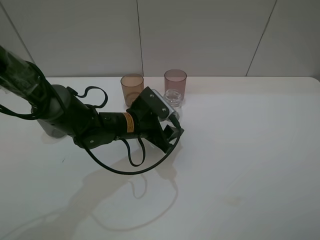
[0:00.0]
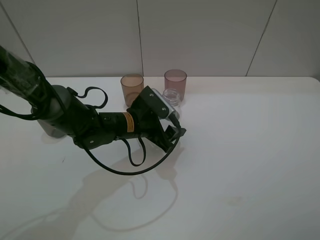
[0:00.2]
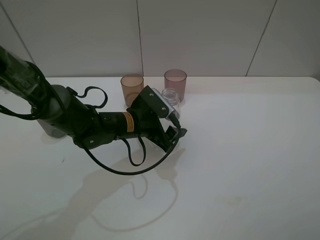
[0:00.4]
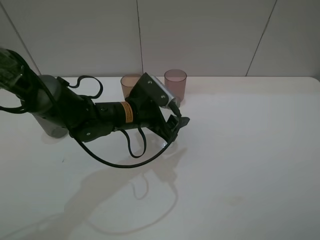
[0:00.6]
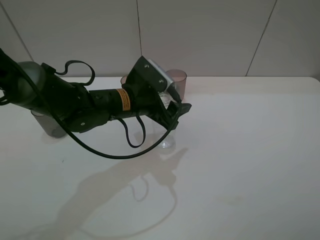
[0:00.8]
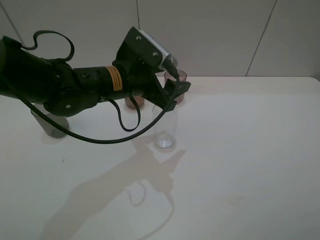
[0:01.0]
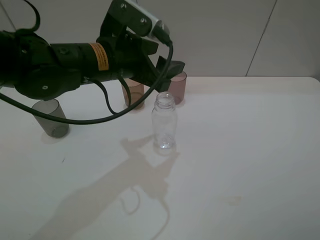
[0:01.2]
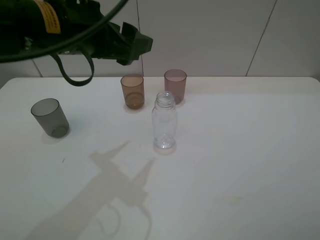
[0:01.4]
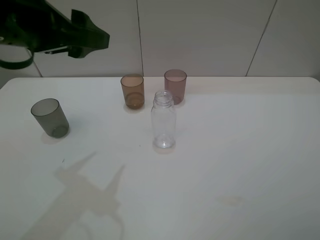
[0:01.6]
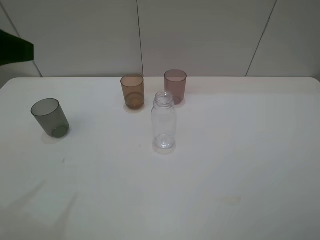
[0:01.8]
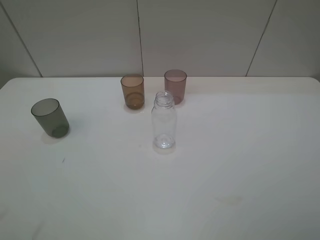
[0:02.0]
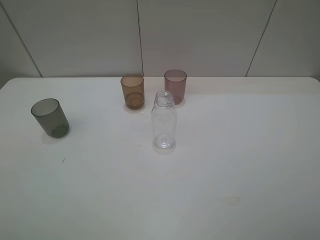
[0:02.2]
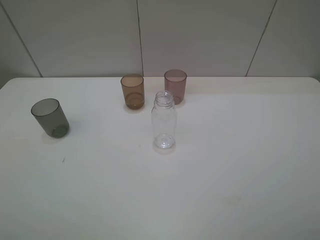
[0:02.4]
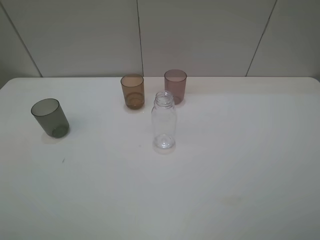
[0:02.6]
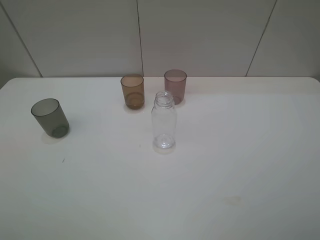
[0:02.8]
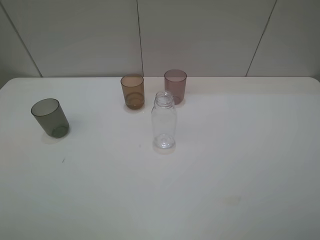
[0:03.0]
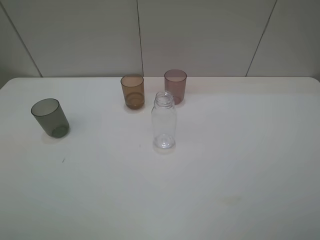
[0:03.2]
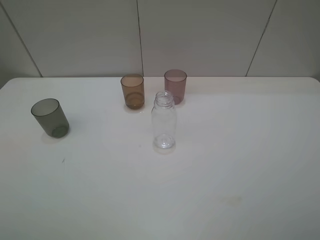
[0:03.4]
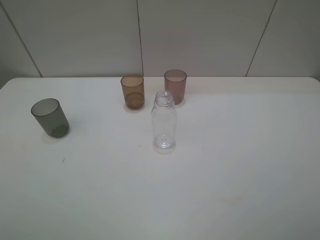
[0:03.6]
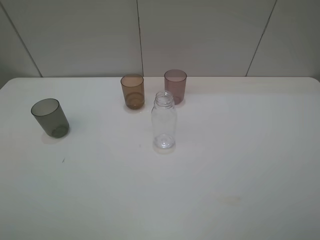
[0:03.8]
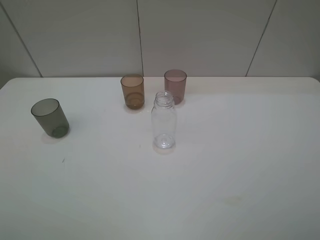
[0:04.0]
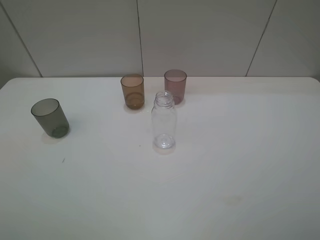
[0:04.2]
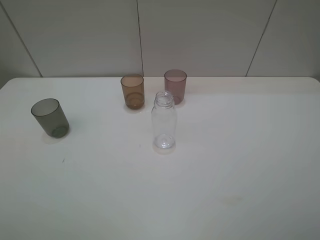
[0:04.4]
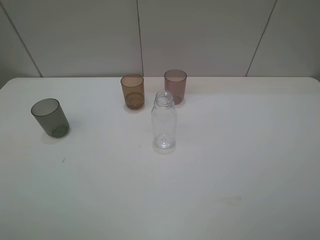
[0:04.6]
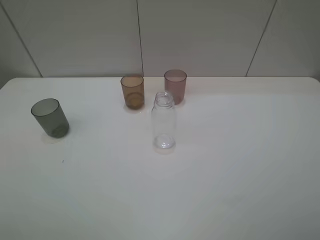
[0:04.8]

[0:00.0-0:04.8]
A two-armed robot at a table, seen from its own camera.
Task of the whole recording: pick up the bottle filled with water and pour water into the middle cup of the three cups.
0.0 to 1.6 s: The left gripper is displaced upward and to the left by about 30 cm, and opens.
1.6 to 3.2 s: The left gripper travels backward and to the left by some 25 cm.

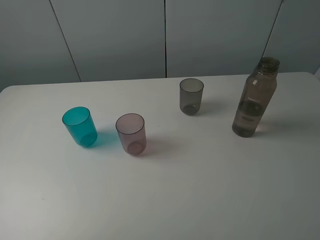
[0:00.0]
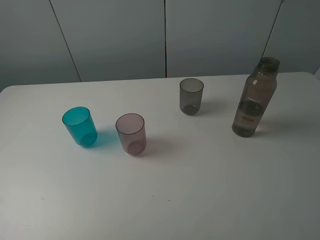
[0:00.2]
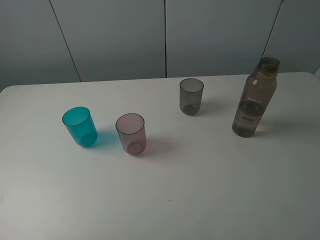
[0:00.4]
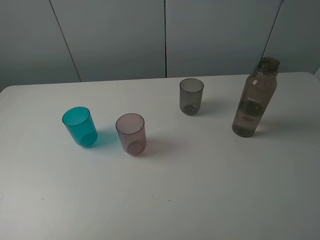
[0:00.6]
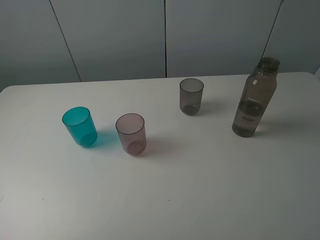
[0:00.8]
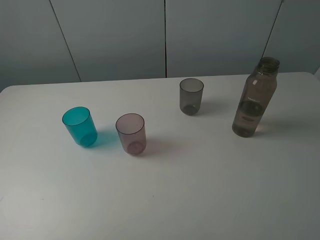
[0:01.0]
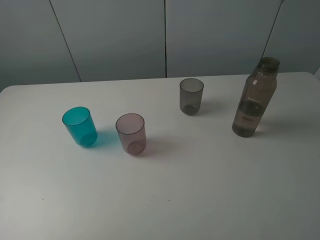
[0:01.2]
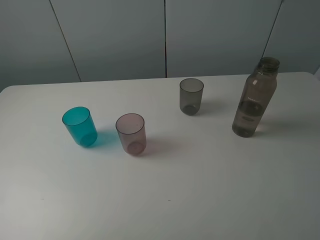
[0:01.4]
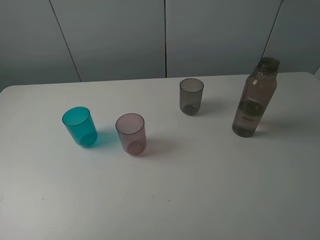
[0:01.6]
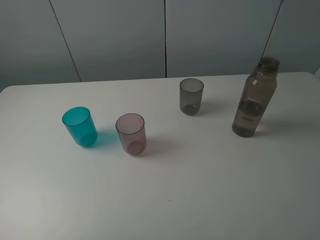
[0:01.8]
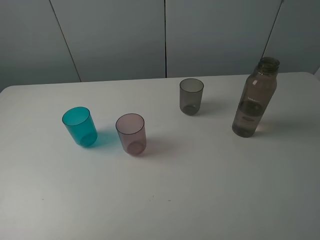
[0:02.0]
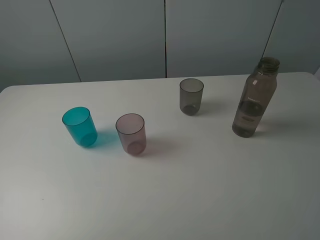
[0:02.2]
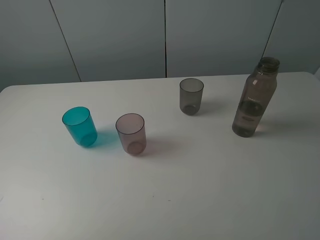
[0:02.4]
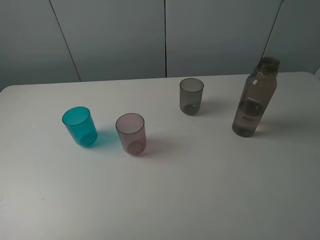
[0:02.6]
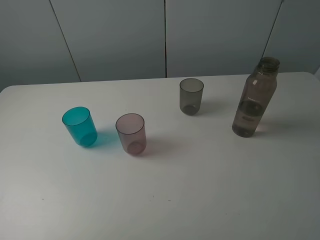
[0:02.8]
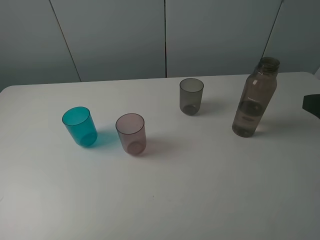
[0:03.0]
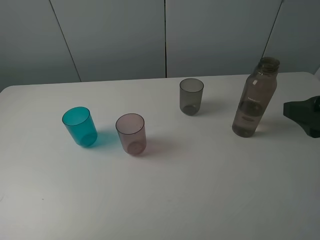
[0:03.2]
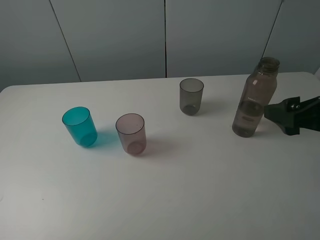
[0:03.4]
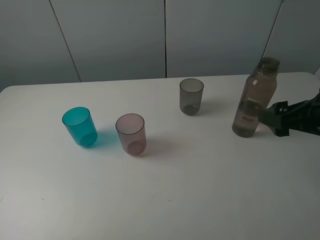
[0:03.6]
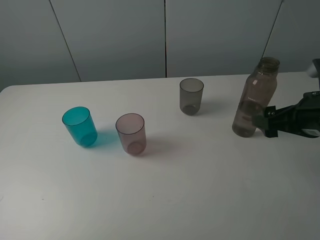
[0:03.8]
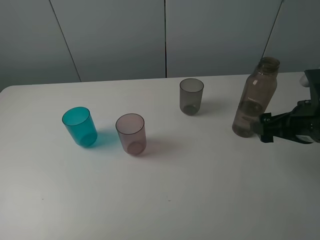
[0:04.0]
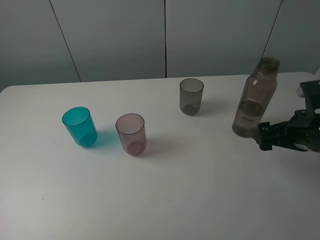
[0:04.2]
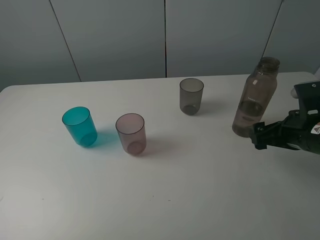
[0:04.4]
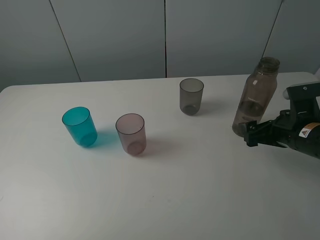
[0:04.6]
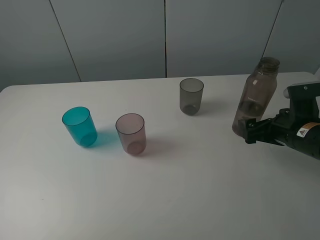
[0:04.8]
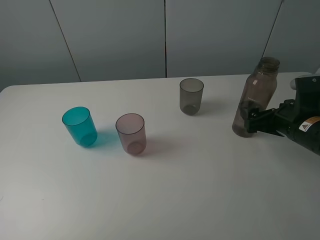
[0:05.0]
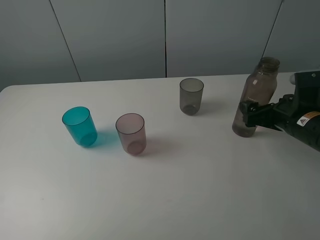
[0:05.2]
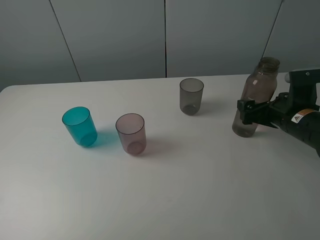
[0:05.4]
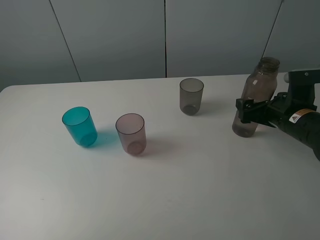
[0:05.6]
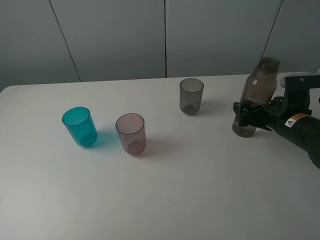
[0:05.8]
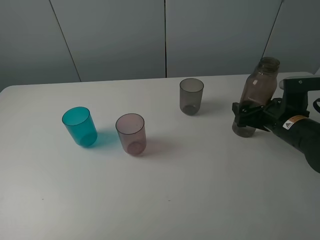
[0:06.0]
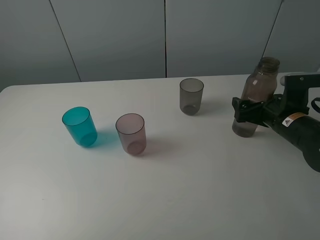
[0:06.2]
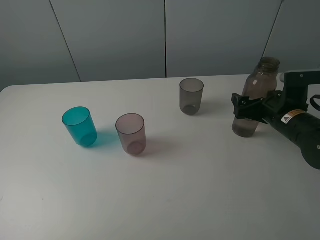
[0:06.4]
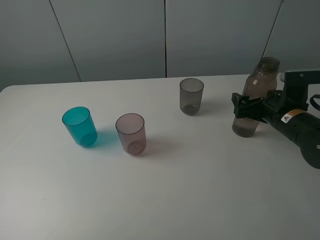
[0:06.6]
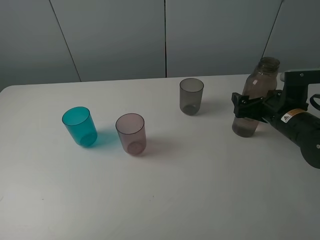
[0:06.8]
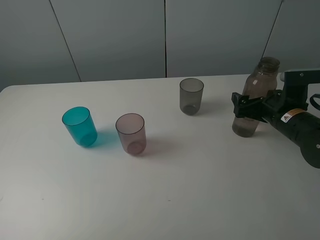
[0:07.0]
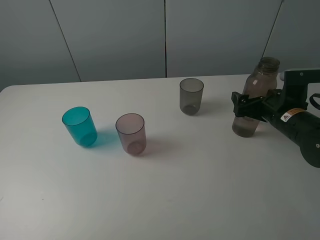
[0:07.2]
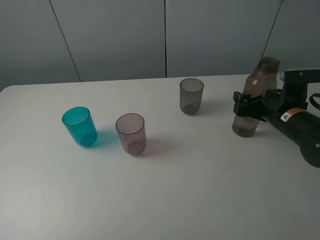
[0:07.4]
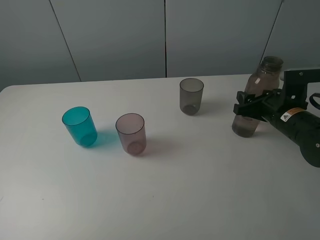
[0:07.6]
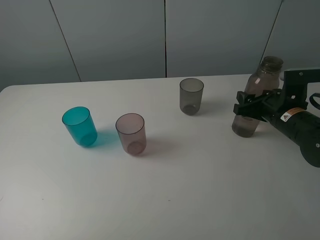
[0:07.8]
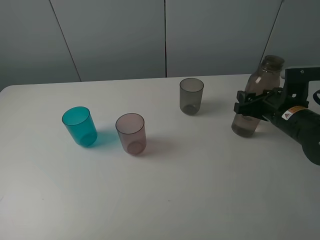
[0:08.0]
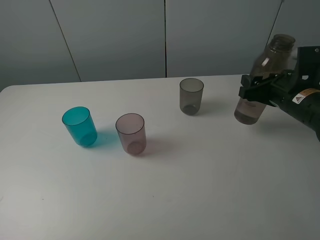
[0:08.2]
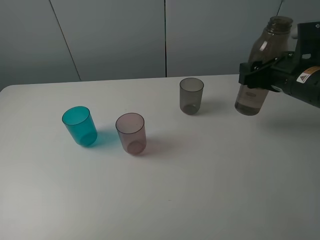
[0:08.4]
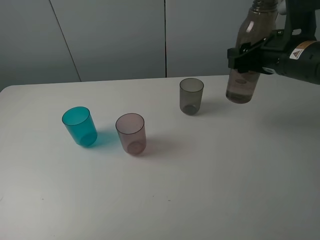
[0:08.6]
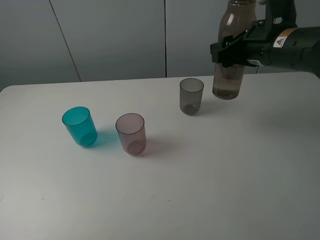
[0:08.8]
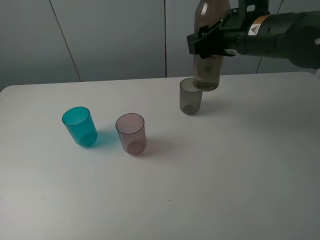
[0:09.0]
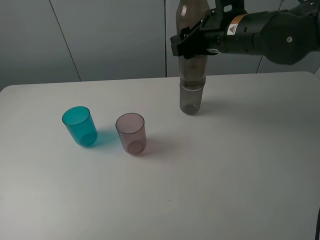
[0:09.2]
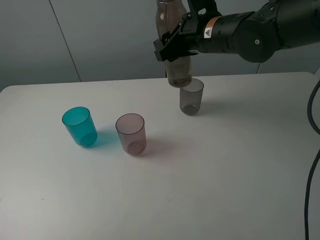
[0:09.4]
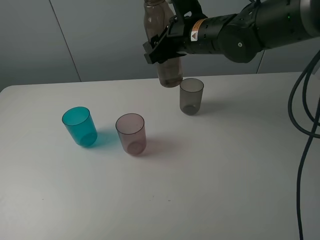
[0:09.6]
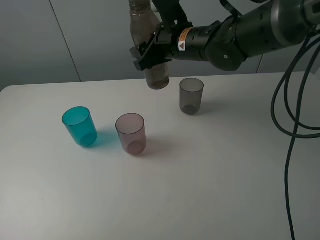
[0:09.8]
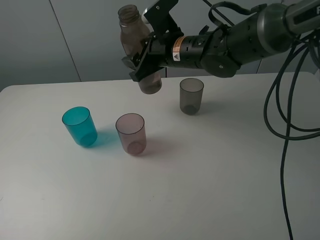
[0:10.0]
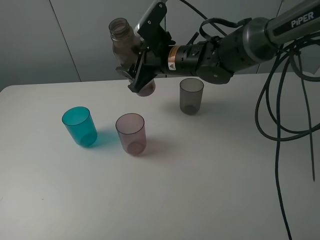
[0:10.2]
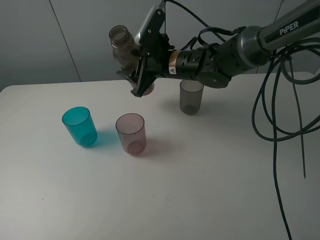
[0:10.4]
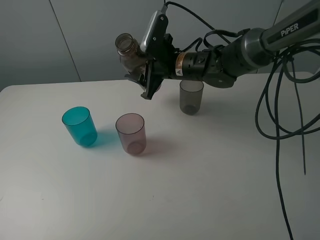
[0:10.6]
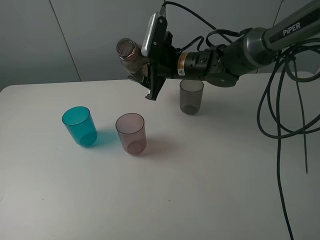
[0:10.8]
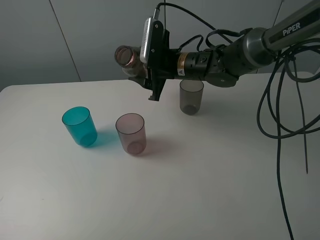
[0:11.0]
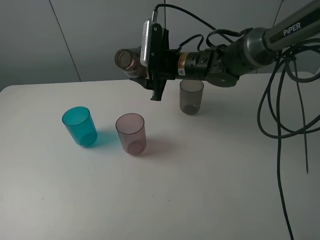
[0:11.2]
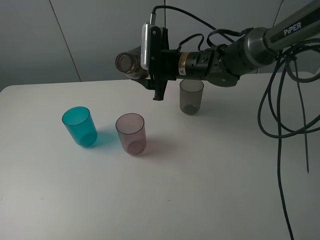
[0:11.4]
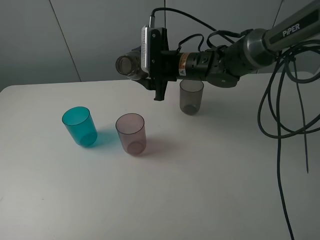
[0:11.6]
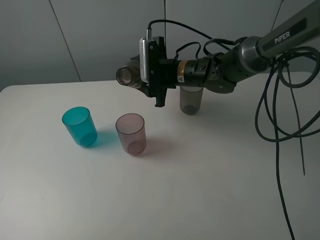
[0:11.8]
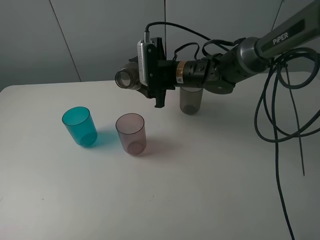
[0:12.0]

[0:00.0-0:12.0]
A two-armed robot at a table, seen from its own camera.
Task of the whole recording: pick up the bottle filled with water and pour water into the middle cup of the three cups.
Step, 0.0 to 7.6 s: Grasp the brown bottle with the right gripper.
0.0 to 1.6 s: Both grippers stay put.
3.0 to 4.4 s: The right gripper goes about 15 cm downward and forward.
4.4 to 6.0 s: The right gripper ends up some 5 cm from where it was.
6.0 to 7.6 s: The right gripper closes.
7.6 to 9.0 s: The right gripper is displaced upward and to the left by roughly 20 cm.
9.0 to 10.4 s: The right gripper goes some 15 cm to the left, downward and forward.

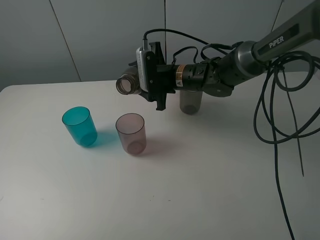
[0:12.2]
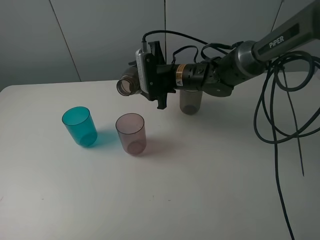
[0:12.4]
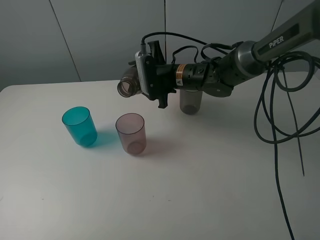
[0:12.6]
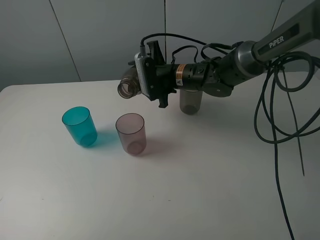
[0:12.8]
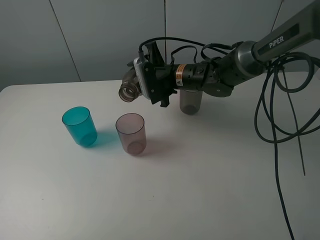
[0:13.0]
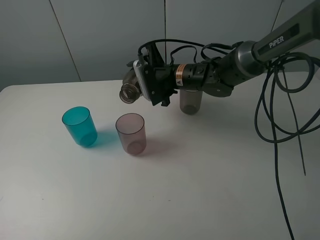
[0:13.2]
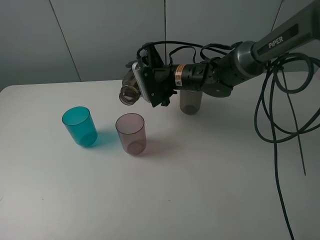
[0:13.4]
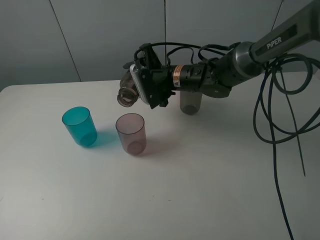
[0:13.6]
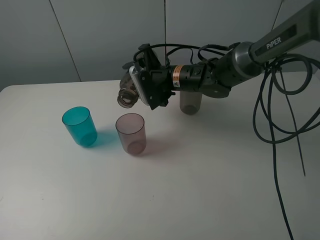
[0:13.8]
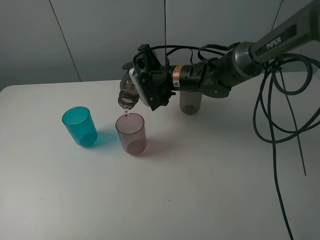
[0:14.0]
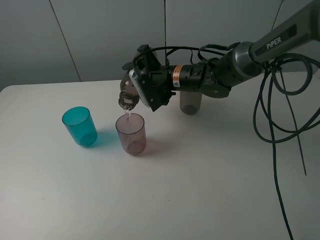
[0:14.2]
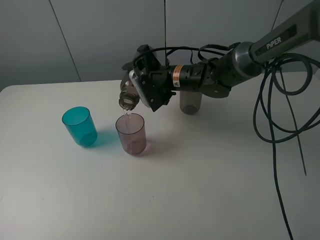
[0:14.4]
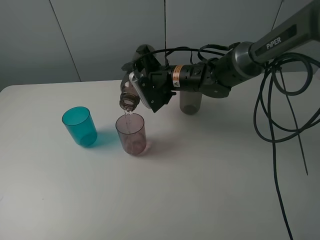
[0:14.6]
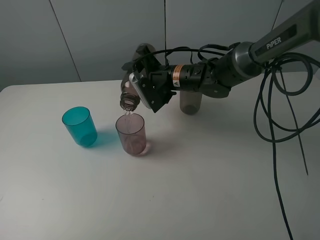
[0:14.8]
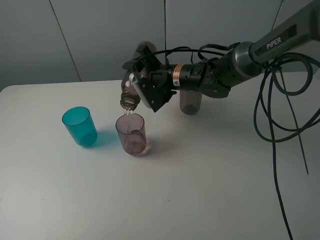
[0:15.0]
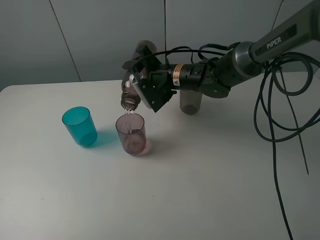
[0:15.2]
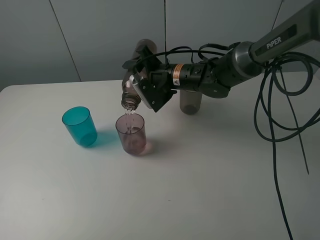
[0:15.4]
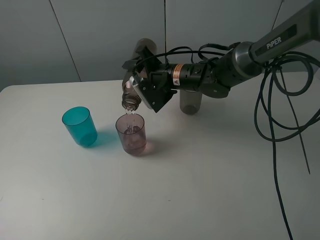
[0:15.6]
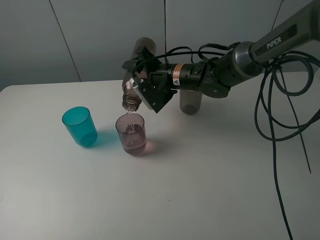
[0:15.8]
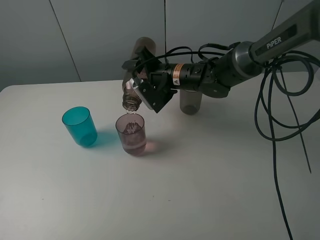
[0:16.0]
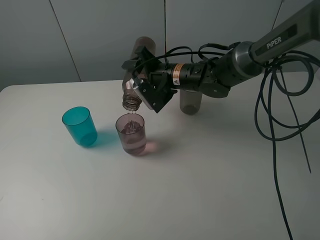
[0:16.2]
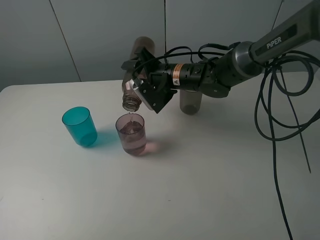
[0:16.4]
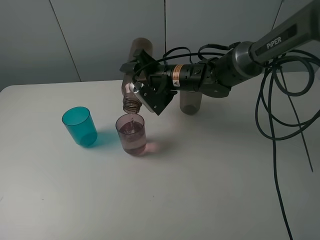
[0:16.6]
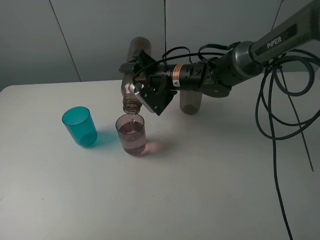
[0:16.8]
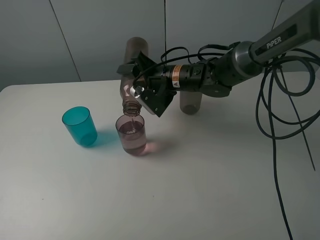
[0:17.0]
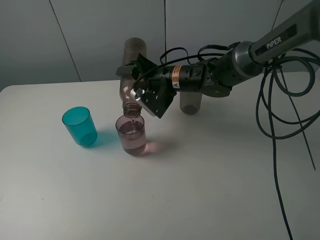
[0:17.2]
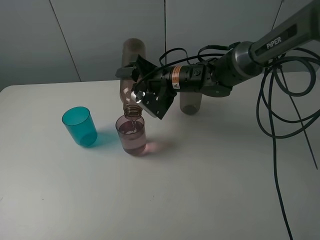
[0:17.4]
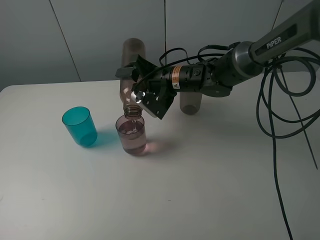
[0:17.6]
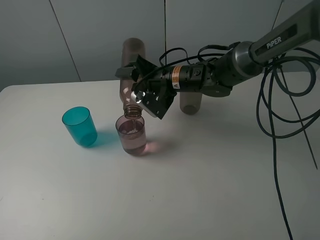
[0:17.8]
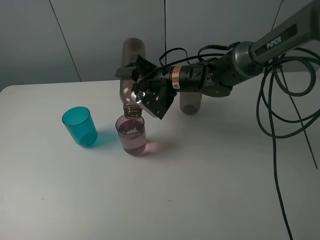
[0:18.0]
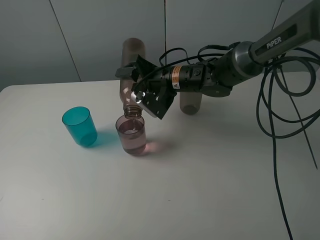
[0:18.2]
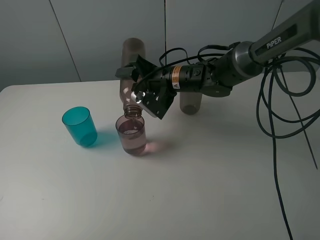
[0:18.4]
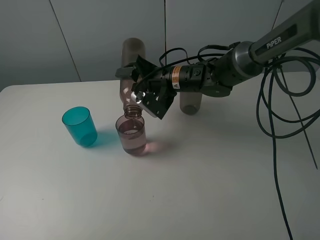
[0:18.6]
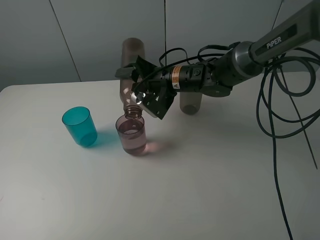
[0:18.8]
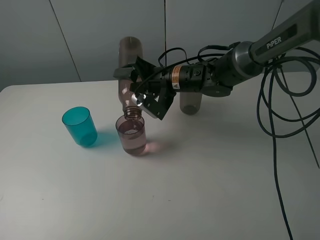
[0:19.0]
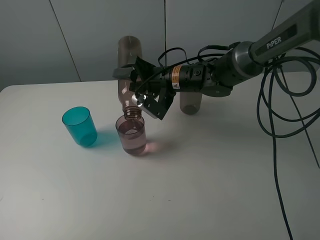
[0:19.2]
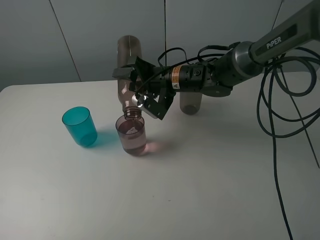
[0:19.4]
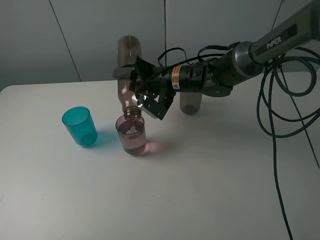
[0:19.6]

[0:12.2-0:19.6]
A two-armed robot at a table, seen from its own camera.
Task of the whole recording: pick up the bottle filled with water and pour water into the middle cup of the three cups.
12.2 to 13.6 s: There are only small adjustments of the grippers.
13.6 to 15.2 s: The grippers move only a little.
15.2 to 18.2 s: The grippers move only a little.
18.2 to 19.6 s: Both grippers stay put.
